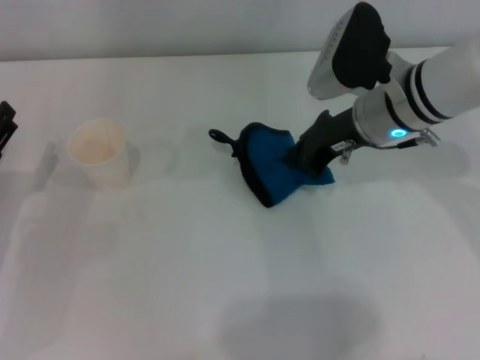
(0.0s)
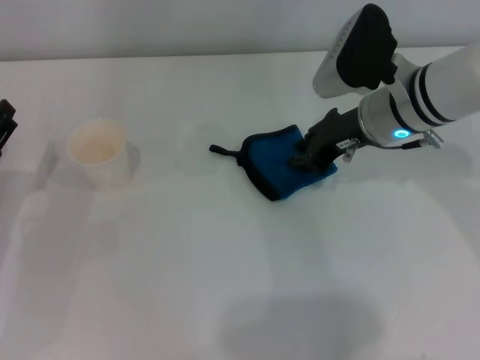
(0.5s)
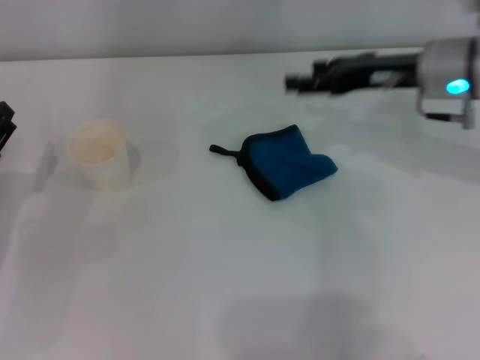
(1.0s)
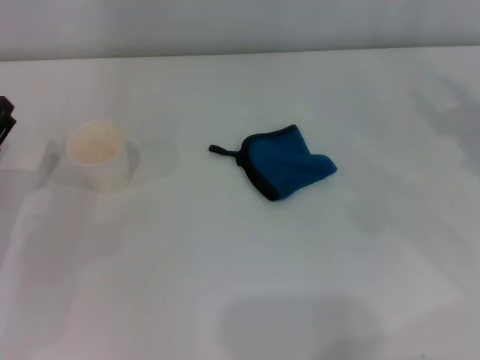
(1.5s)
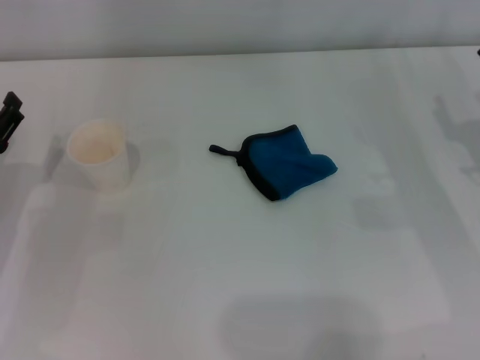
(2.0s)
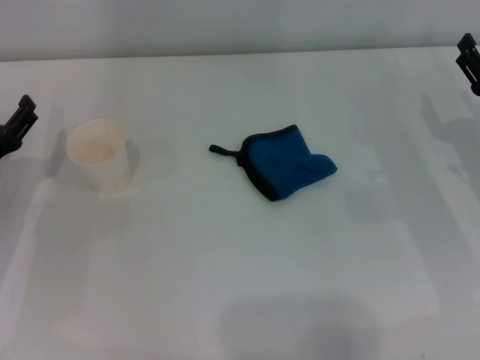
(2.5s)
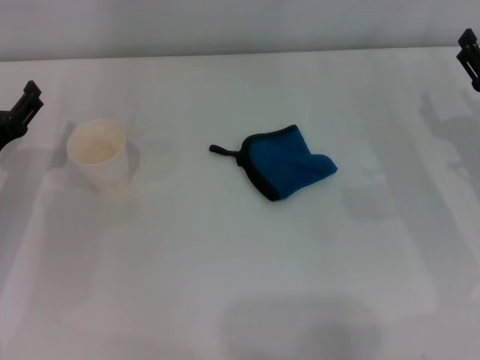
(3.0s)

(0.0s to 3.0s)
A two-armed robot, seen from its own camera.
Step, 0.0s - 0.5s: Place the rag on the table with the right gripper.
0.0s - 1.5s: The right gripper is displaced to the right and backward by approximately 20 cm, and opens.

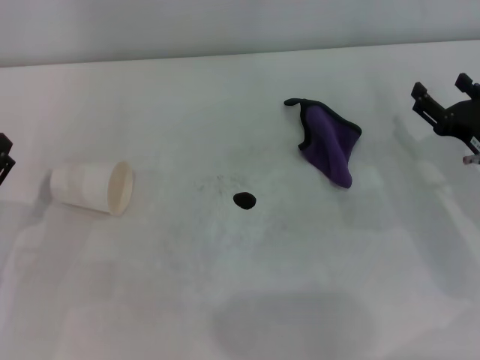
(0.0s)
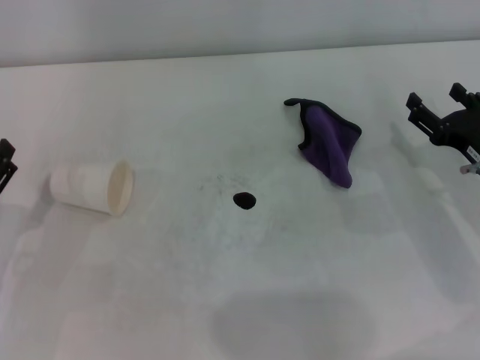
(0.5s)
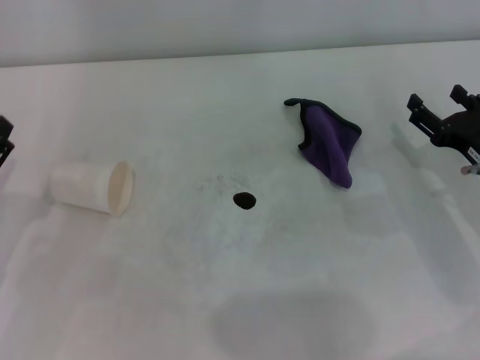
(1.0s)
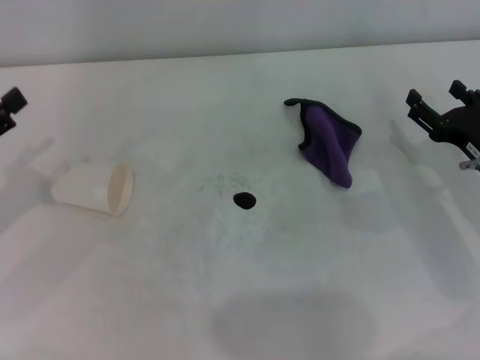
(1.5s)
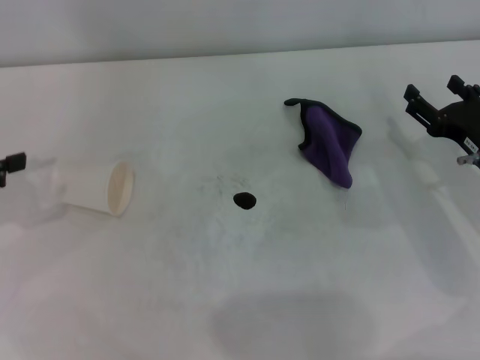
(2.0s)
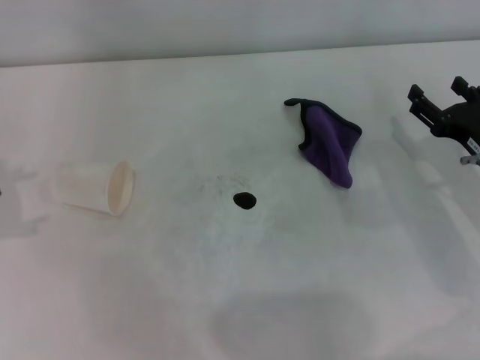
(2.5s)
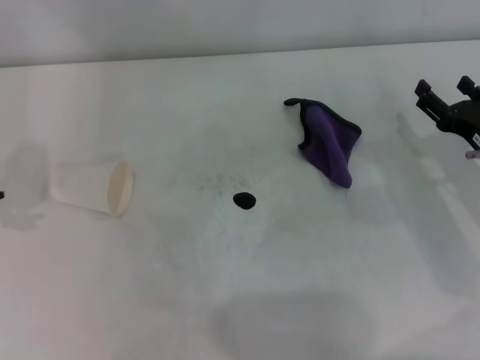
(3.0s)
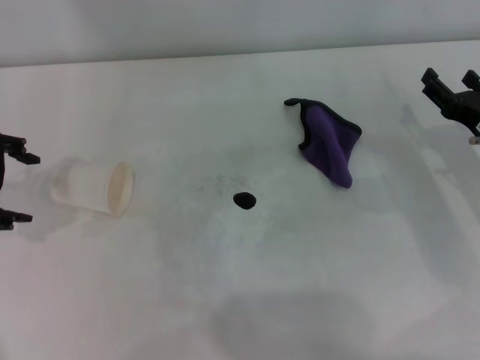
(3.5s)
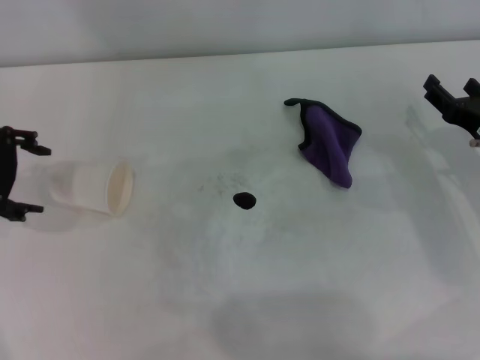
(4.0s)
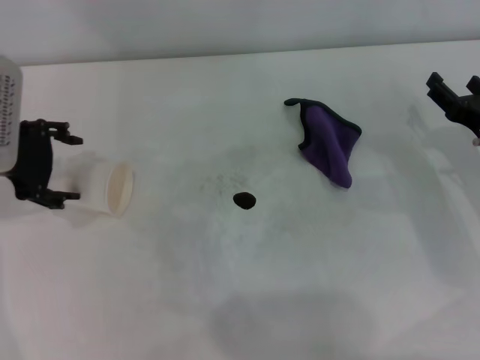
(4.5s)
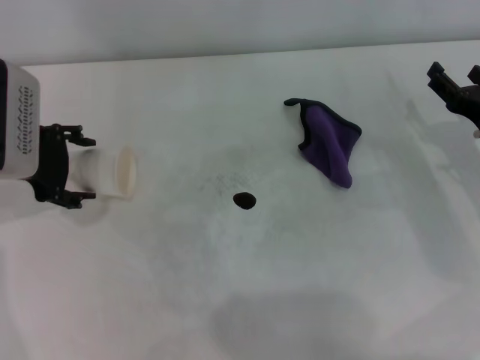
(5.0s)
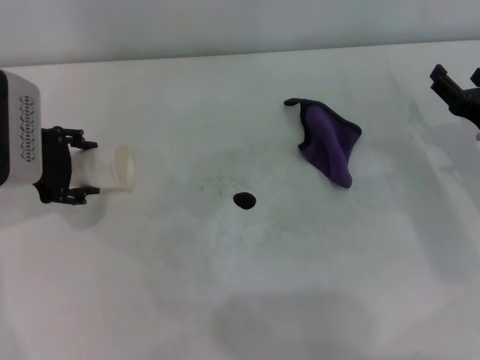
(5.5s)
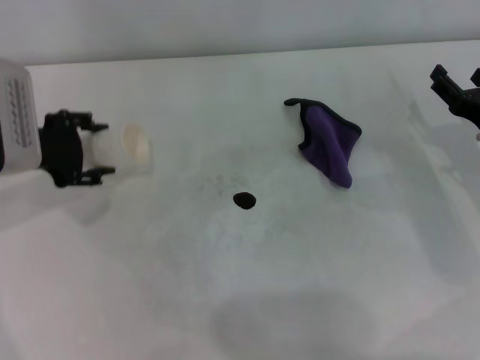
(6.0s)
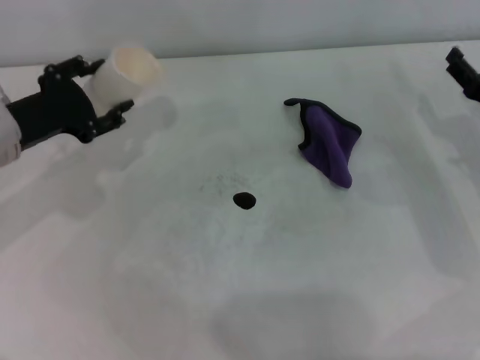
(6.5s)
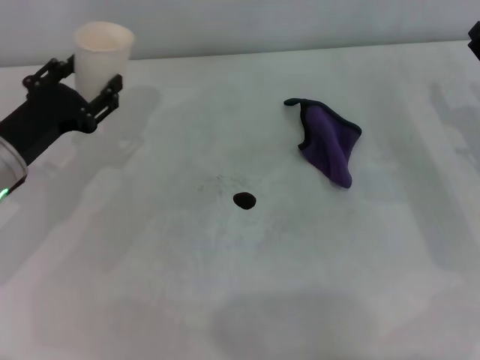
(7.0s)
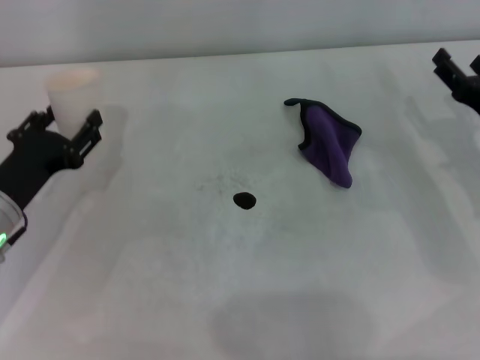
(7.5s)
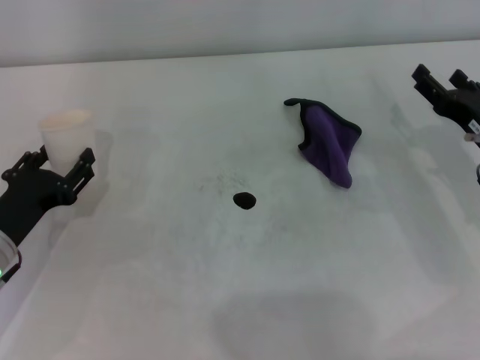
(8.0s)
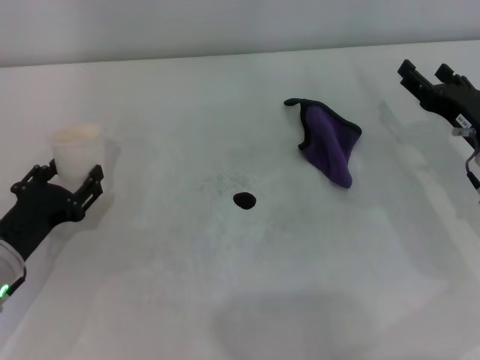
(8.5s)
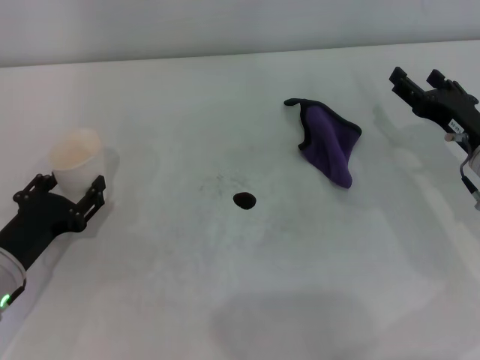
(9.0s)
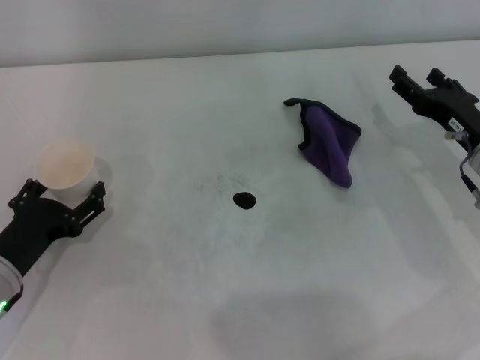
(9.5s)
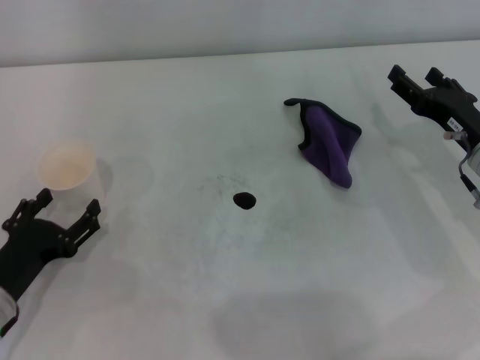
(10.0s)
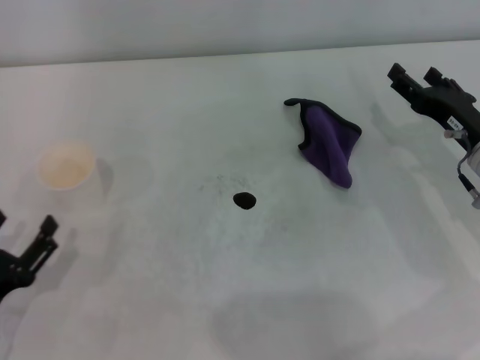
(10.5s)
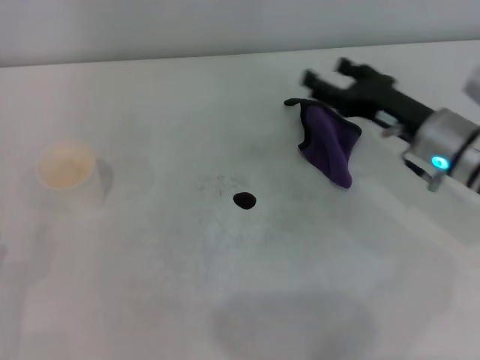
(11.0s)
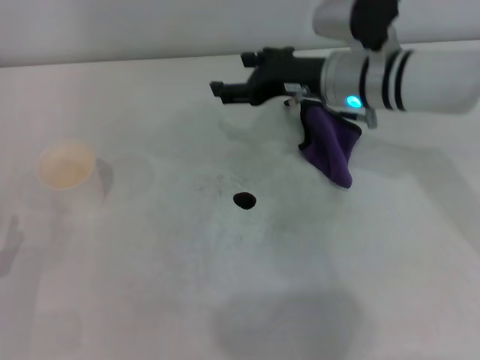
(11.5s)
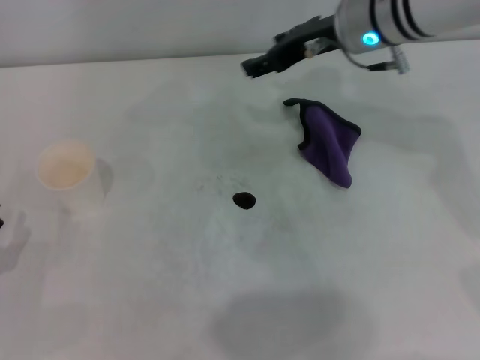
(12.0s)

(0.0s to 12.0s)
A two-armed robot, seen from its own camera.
Step, 0.0s - 5.0s: Grasp the paper cup with the left gripper.
Step, 5.5s - 9.5s: Stand the paper cup upright with the left gripper.
2.0s - 4.0s: The left gripper travels to the right and forward by about 10 cm.
4.0s - 6.0s: The left gripper heads downward, covering approximately 5 cm, and closes.
6.0s - 8.0s: The left gripper heads downward and backward, covering roughly 15 cm.
8.0s - 10.0s: The left gripper changes place by roughly 5 cm, and opens up.
10.0s - 12.0s: The right gripper moves upward, to the left and forward, some 25 cm. Meanwhile the left gripper ends up roughly 5 cm from where it was.

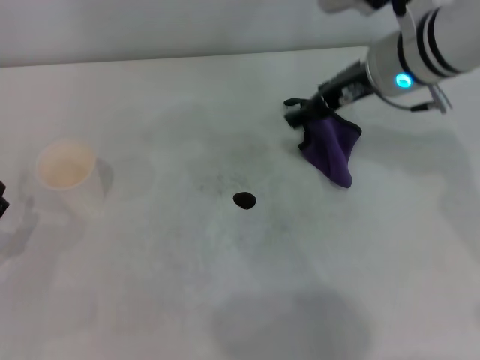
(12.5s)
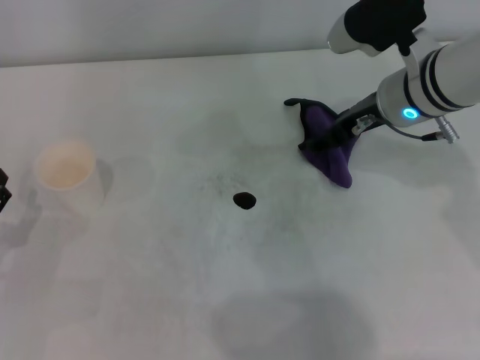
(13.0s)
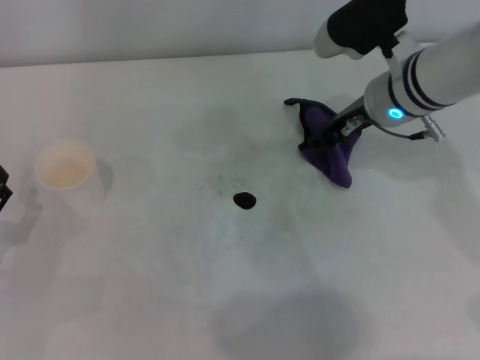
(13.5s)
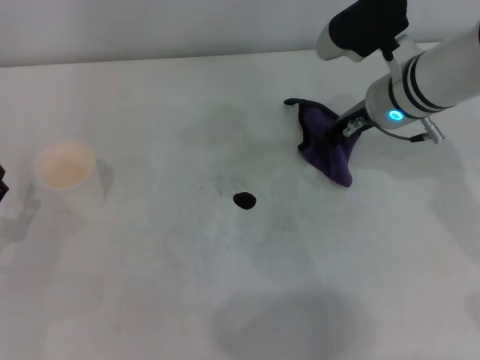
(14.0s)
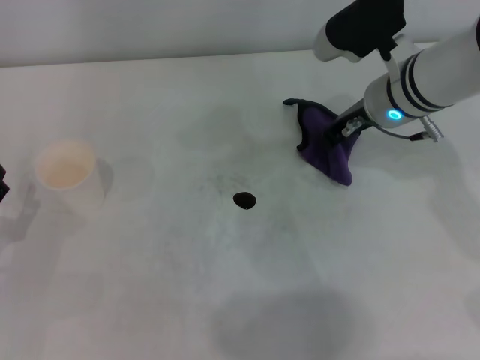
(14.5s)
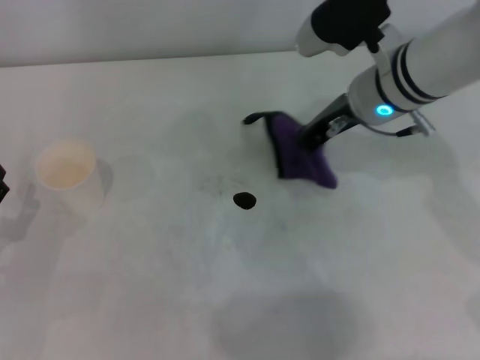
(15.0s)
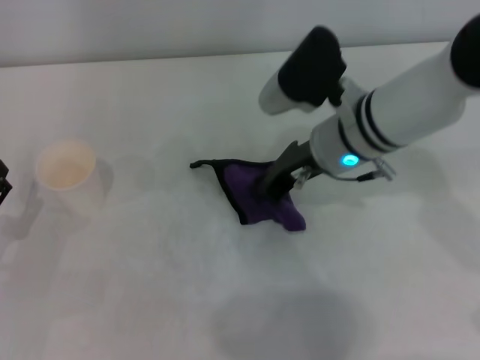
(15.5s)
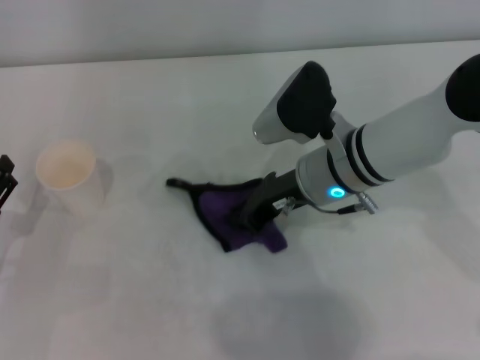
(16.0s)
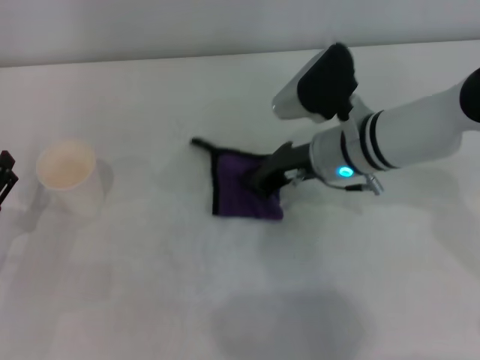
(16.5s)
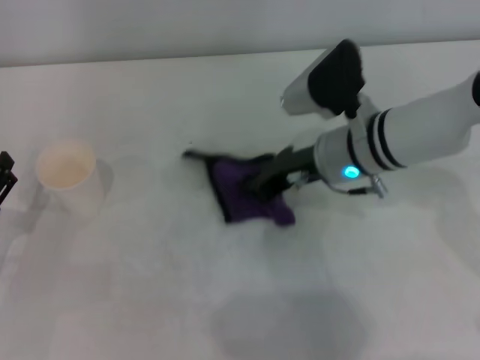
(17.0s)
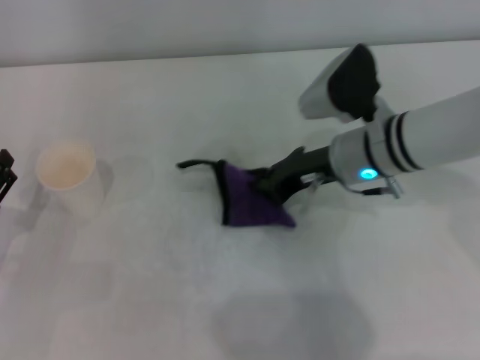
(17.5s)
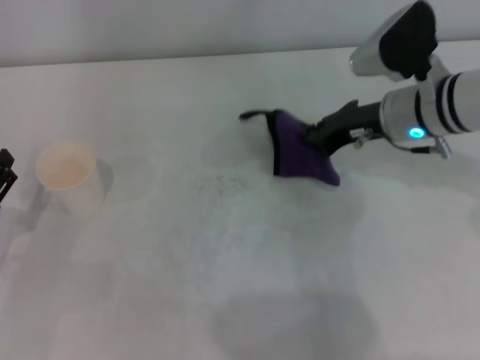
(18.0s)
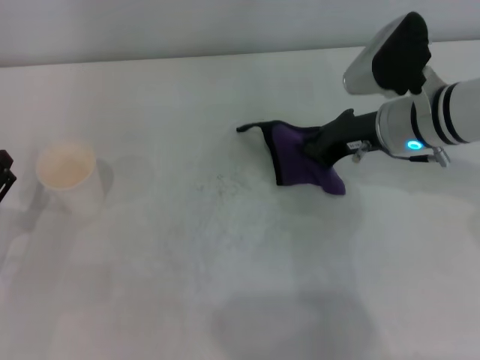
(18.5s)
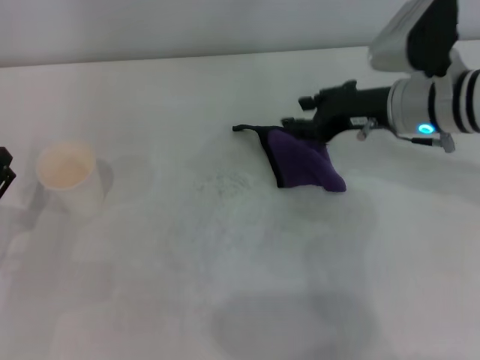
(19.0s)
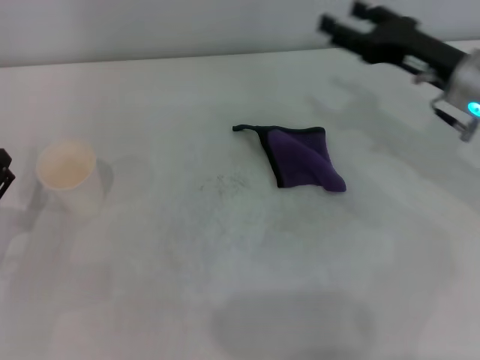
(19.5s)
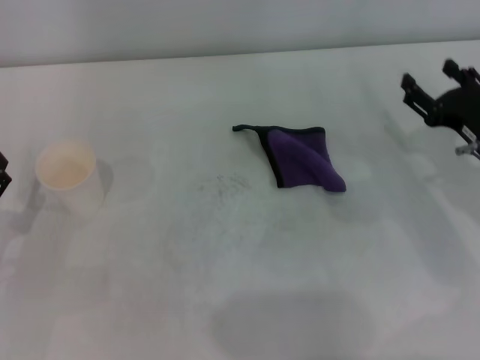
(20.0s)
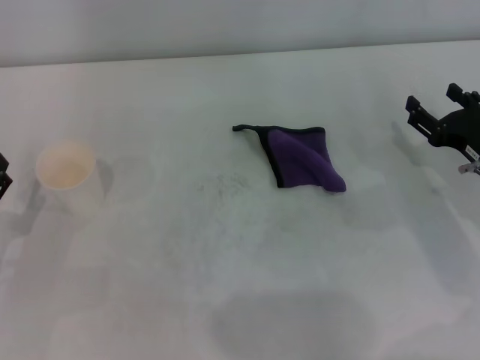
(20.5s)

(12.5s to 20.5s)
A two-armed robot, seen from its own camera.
Step, 12.5s - 14.5s: Grasp the rag with the right gripper.
Step, 15.0s - 18.0s: Wipe the stains off the table with the right gripper.
12.5s - 14.5s: The right gripper changes place by approximately 5 cm, and closes its fingers.
14.5s - 16.5s: The right gripper shifts by roughly 5 cm.
16.5s - 18.5s: The right gripper moves to the right, roughly 5 cm.
18.5s - 20.5s: The right gripper heads to the right, backward and downward, covering roughly 15 cm, and opens.
